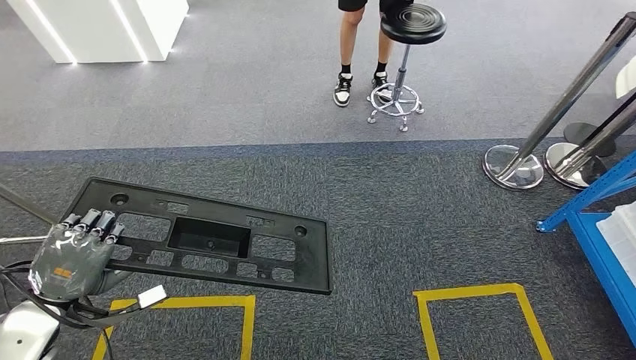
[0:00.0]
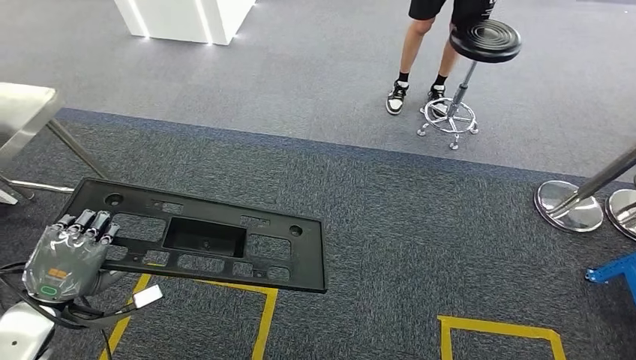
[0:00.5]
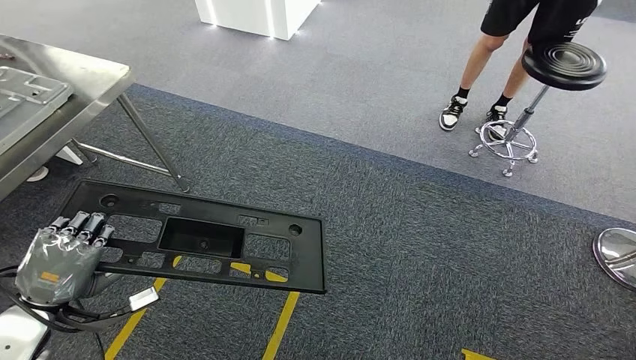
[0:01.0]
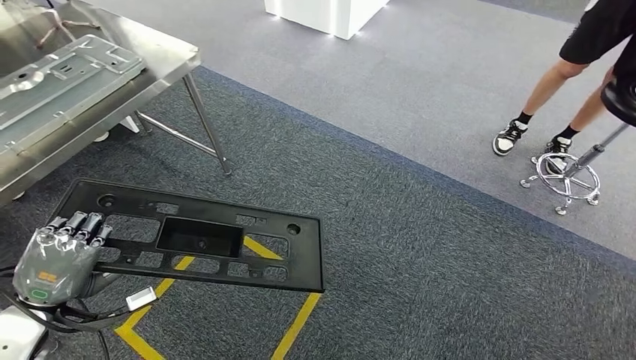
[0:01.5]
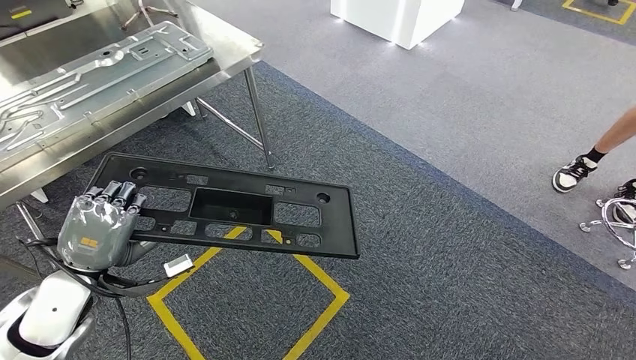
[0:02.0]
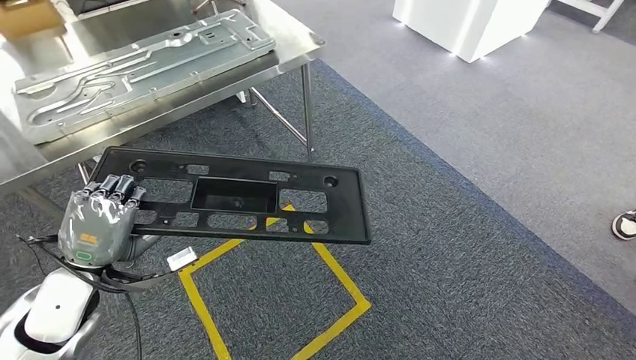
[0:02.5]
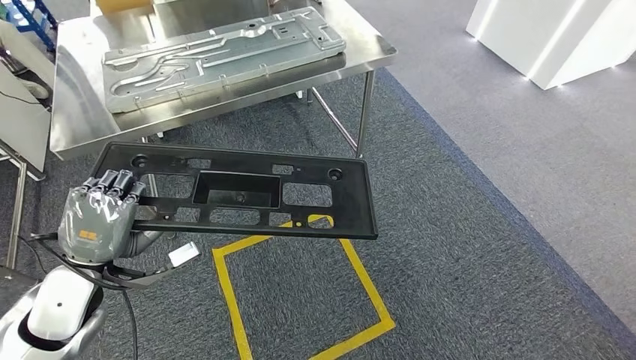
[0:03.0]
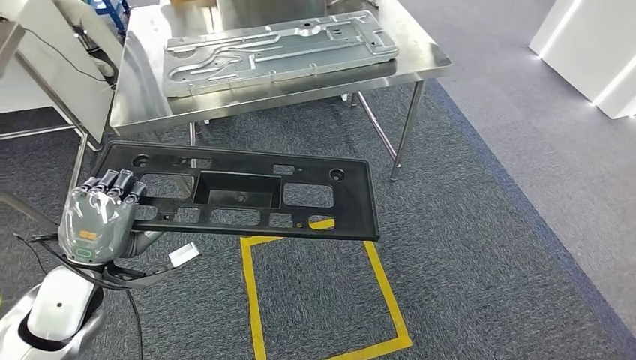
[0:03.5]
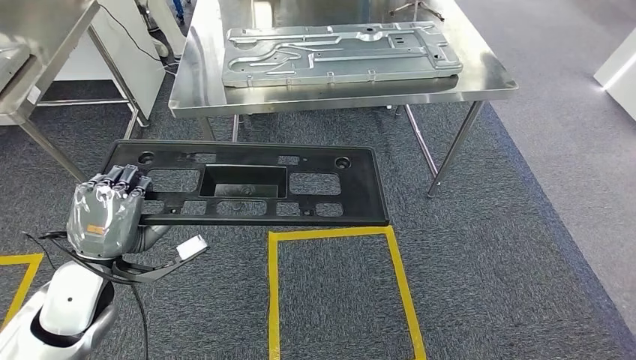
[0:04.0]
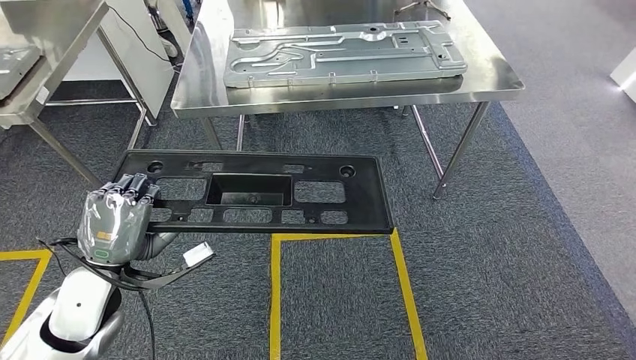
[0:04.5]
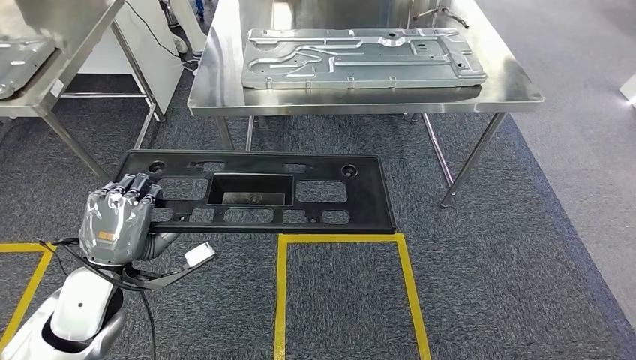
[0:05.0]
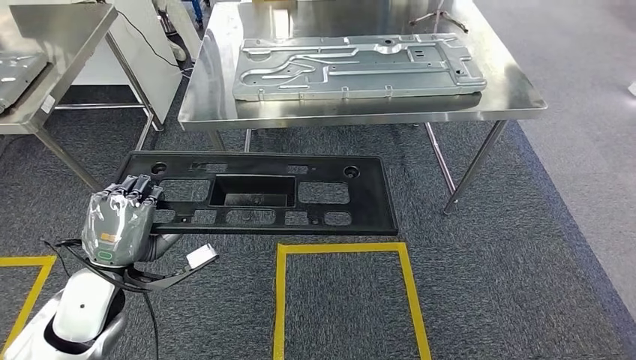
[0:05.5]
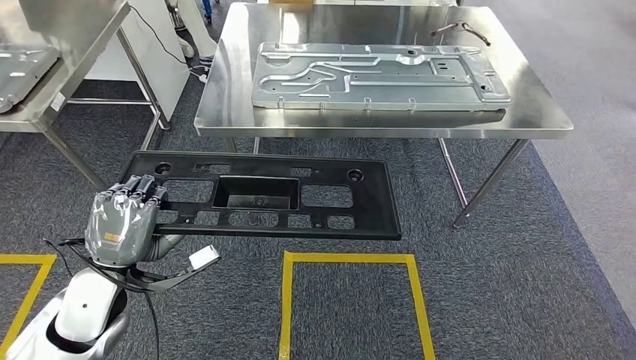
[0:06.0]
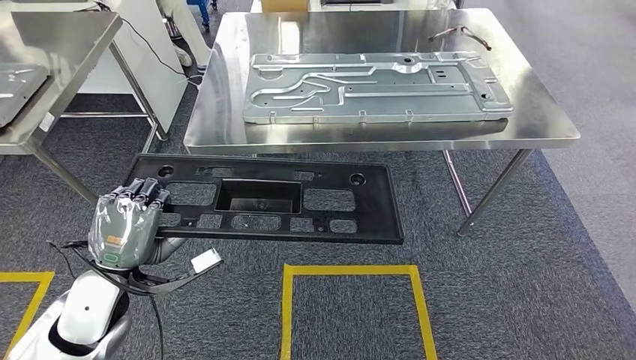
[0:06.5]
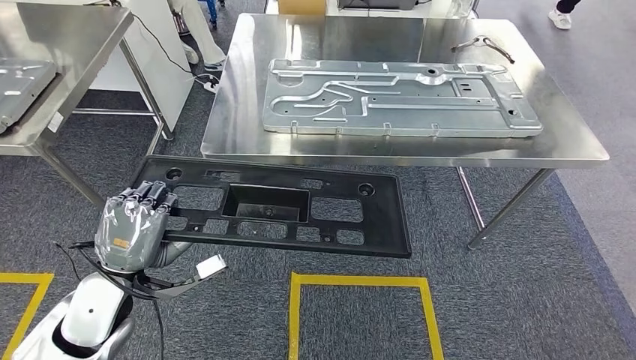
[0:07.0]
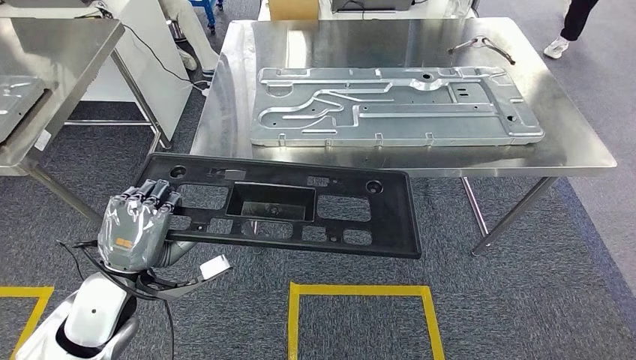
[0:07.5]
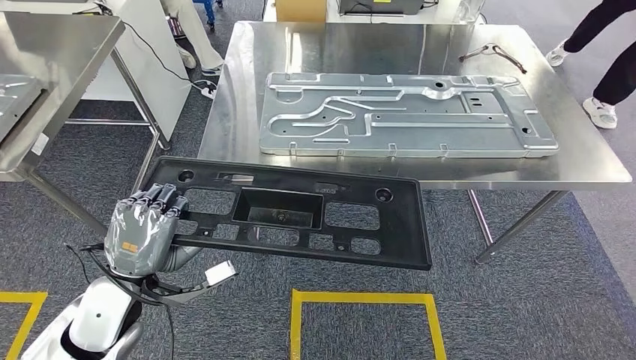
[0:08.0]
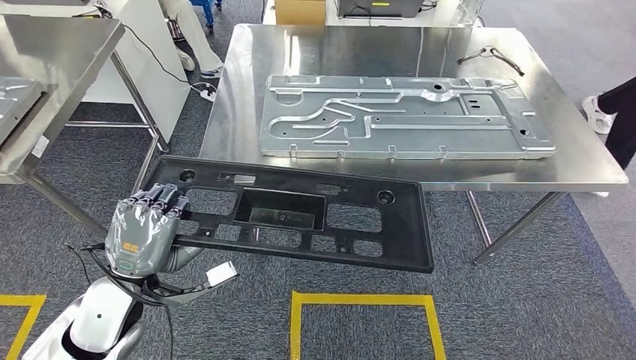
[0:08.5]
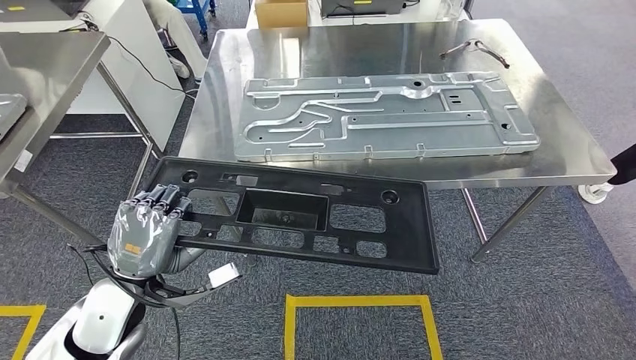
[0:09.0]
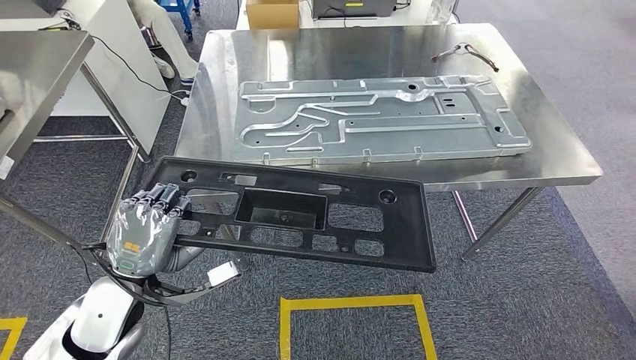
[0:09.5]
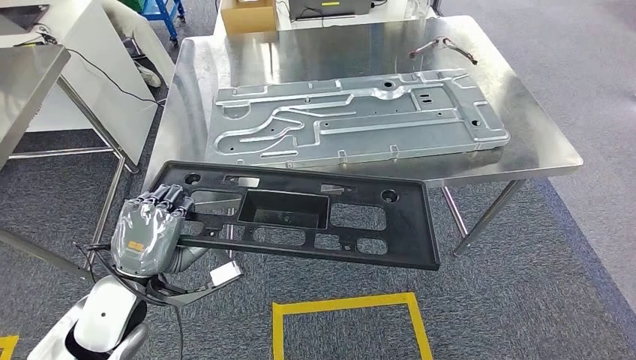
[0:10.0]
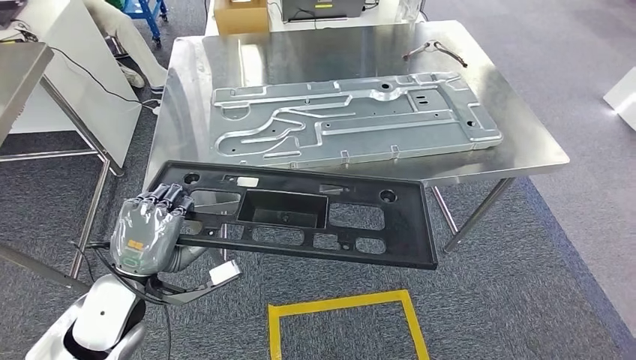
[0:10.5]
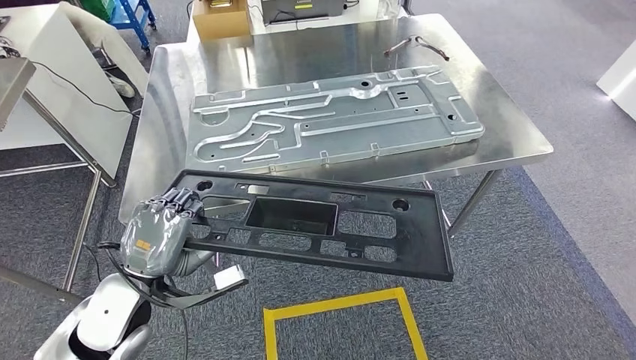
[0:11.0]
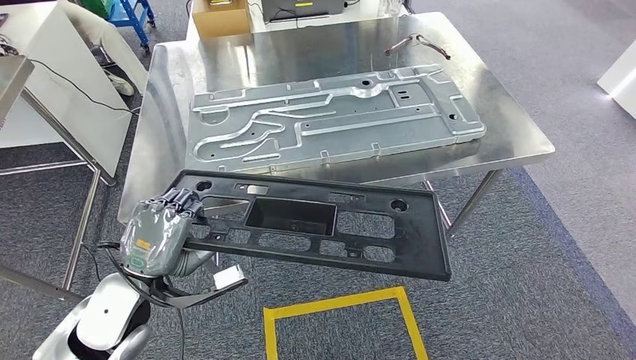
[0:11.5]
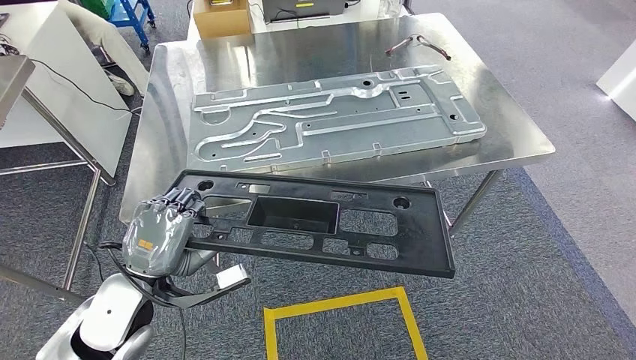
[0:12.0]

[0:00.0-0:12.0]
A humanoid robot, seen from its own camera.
Step, 0:00.0 to 0:09.0: Move the large material to the workbench.

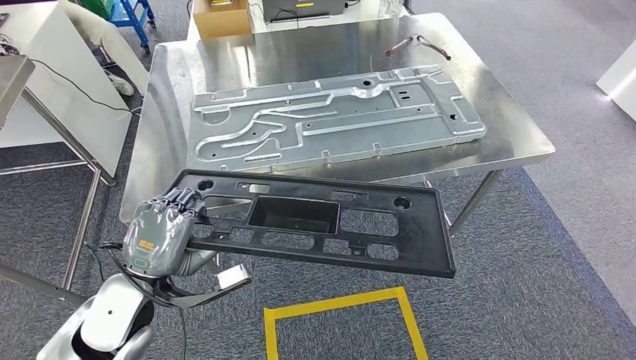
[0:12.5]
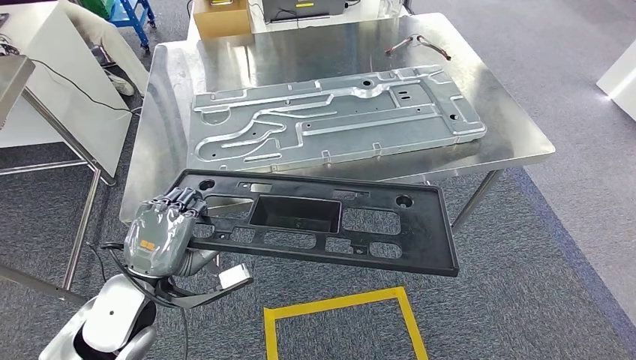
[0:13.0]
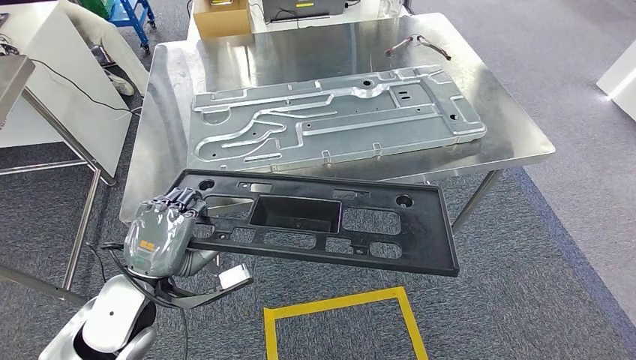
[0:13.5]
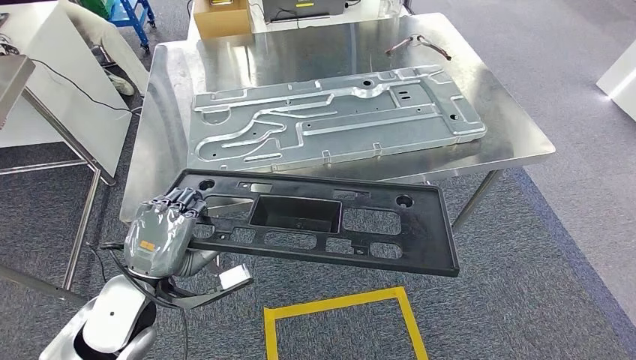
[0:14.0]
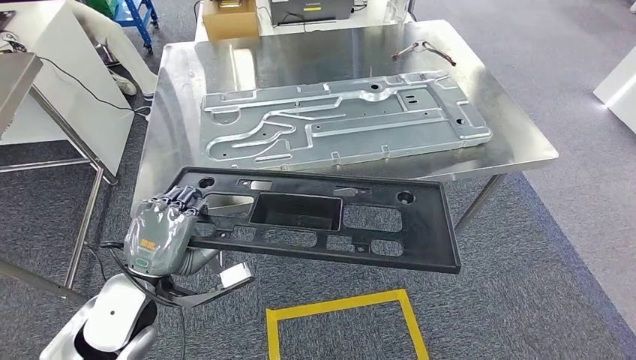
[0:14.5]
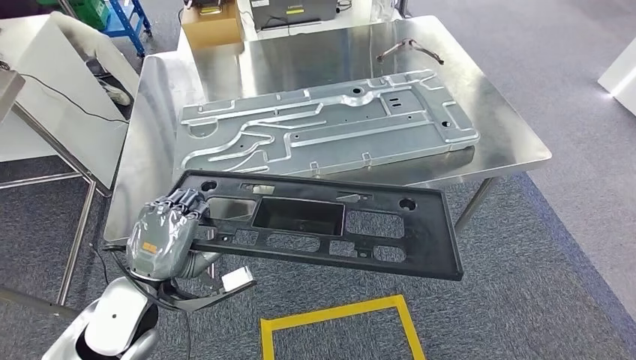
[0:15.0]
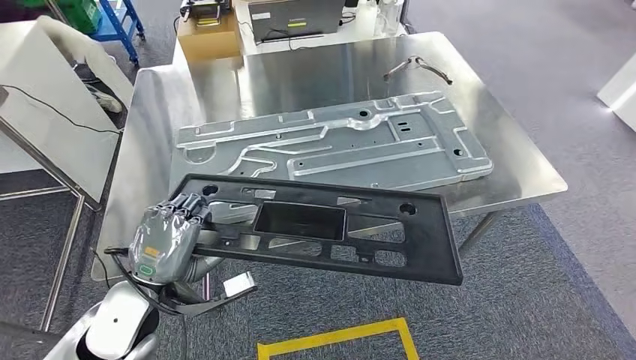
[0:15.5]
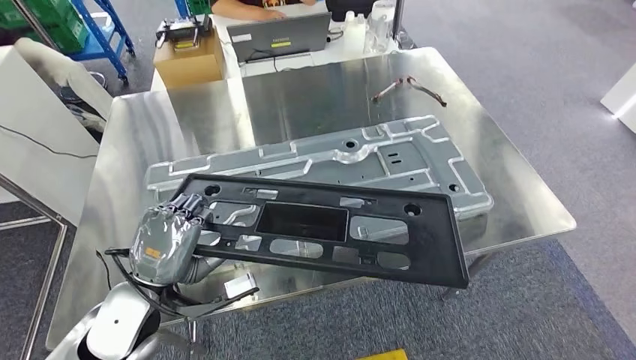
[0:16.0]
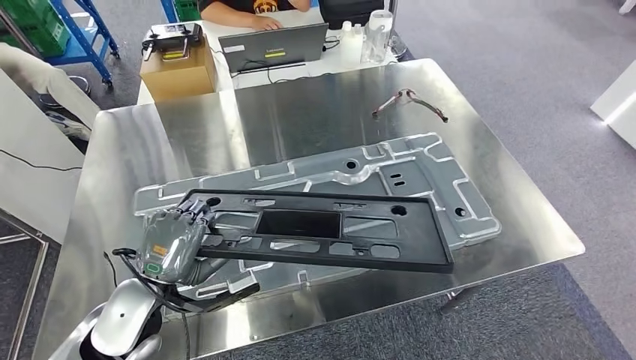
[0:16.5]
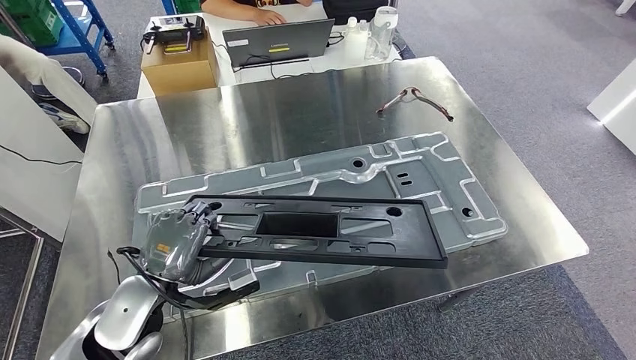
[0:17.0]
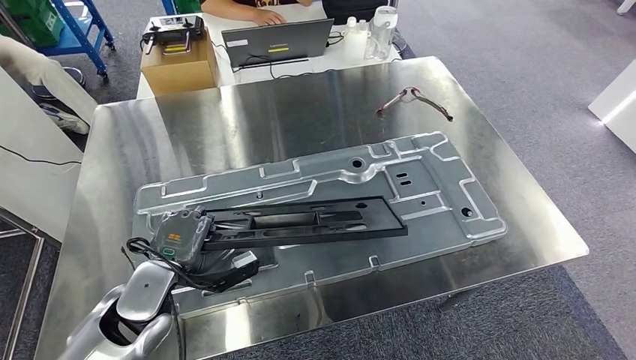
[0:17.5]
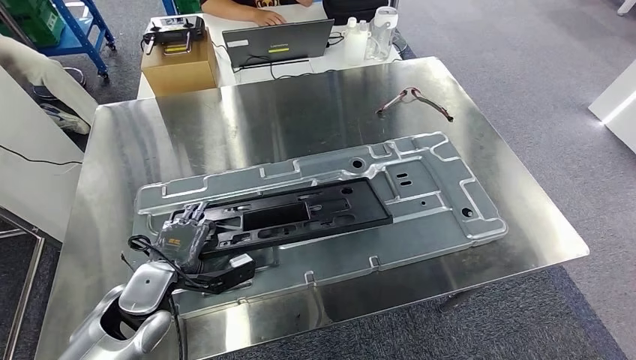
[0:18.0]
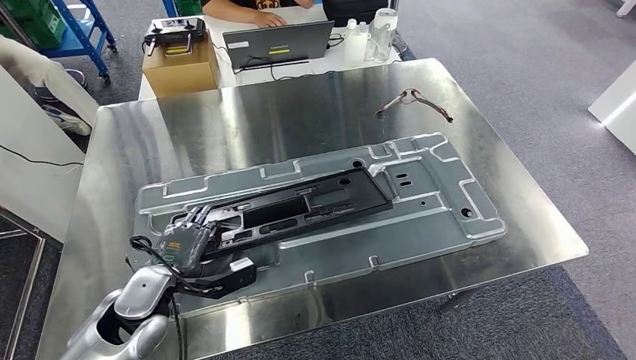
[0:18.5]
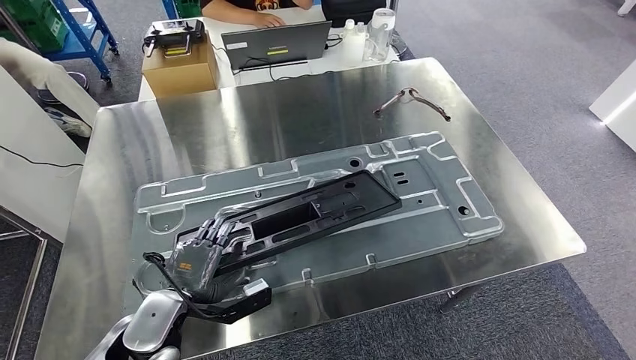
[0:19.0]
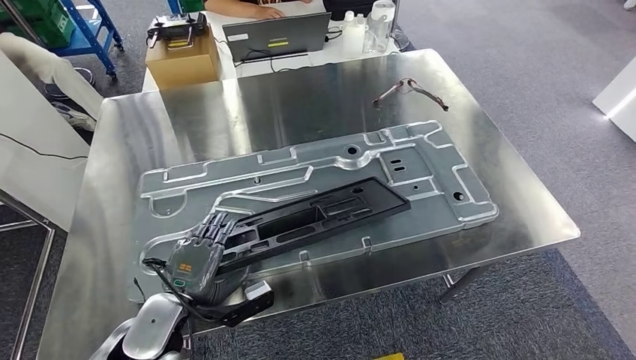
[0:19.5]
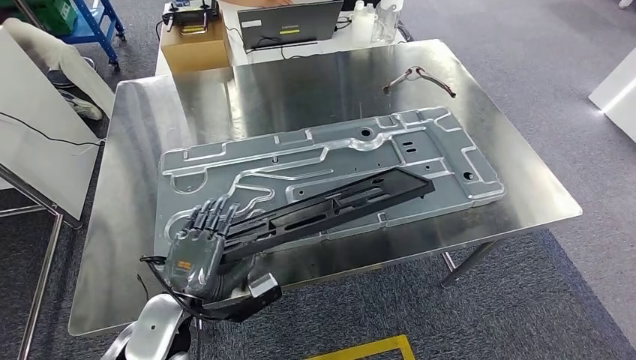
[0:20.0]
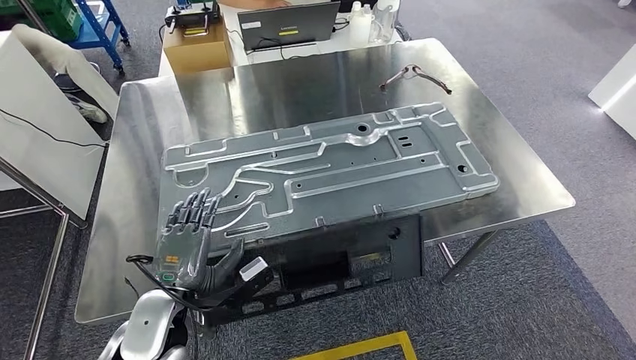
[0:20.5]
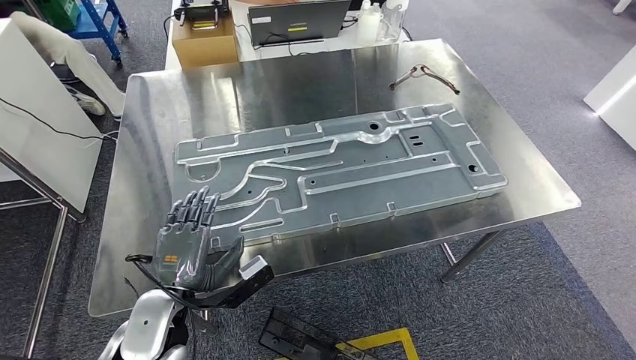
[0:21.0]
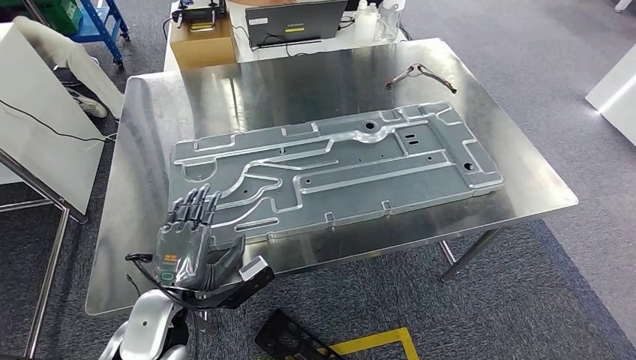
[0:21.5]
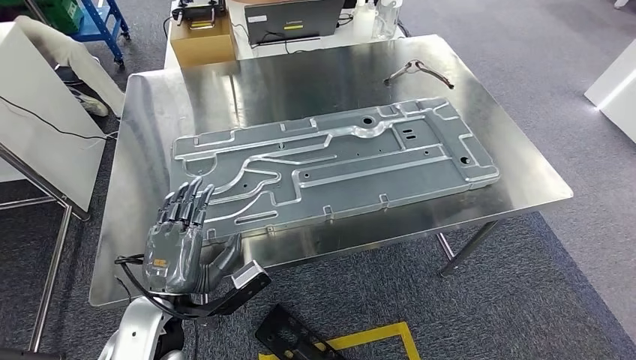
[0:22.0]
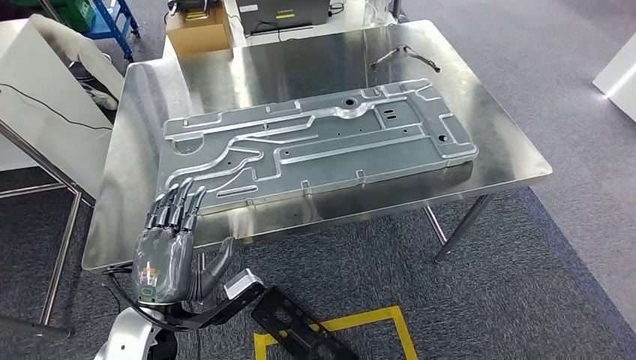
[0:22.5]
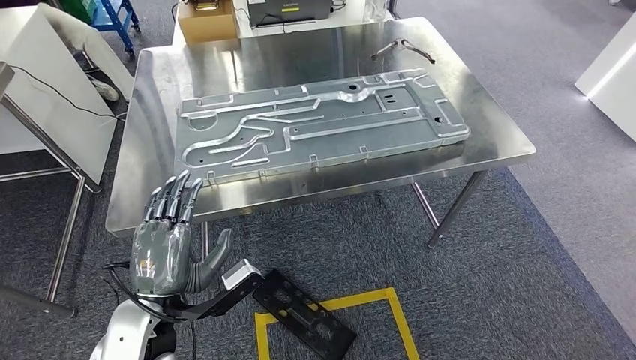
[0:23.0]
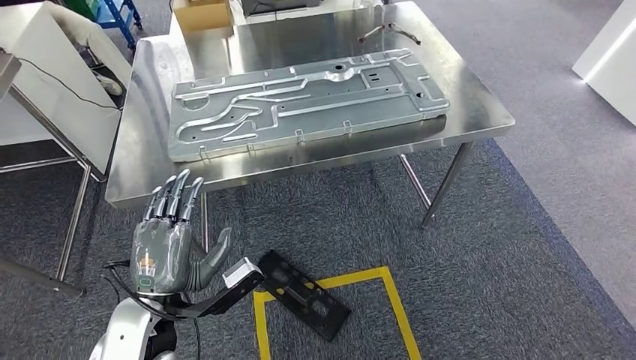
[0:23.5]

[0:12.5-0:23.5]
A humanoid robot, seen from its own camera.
Step, 0:12.5 to 0:23.5: Insert the large material into the corresponding slot on the workbench.
0:12.5 to 0:14.5: The two hands keep their place.
